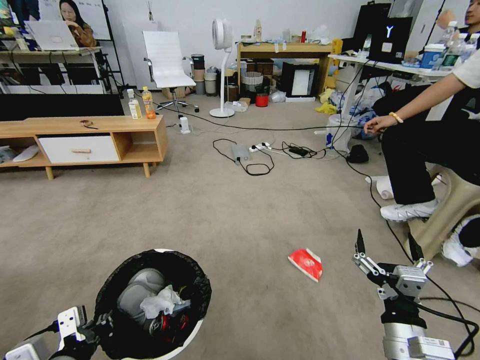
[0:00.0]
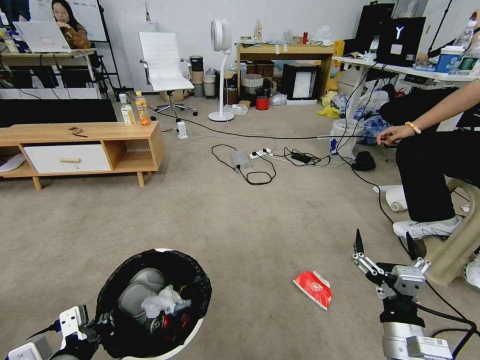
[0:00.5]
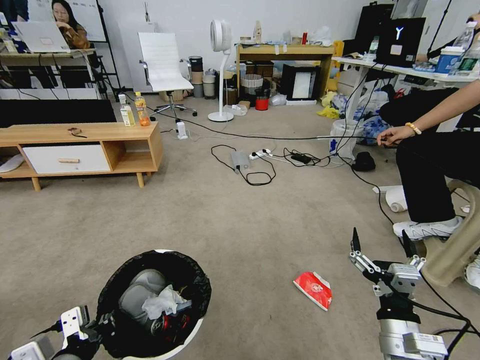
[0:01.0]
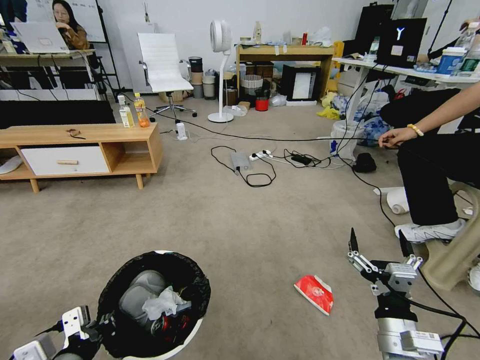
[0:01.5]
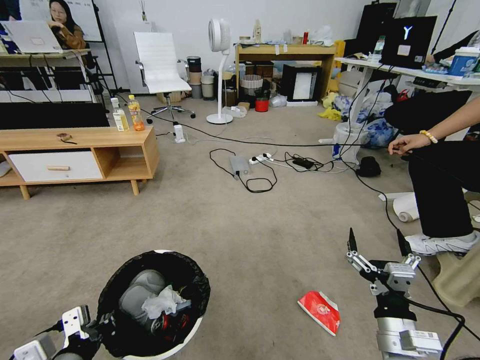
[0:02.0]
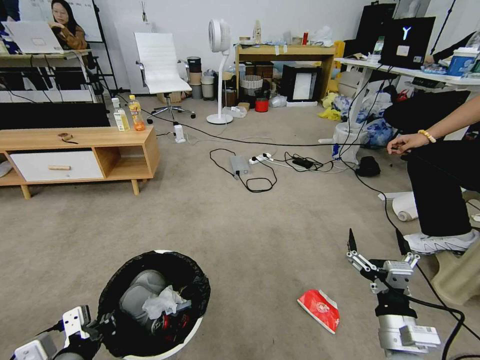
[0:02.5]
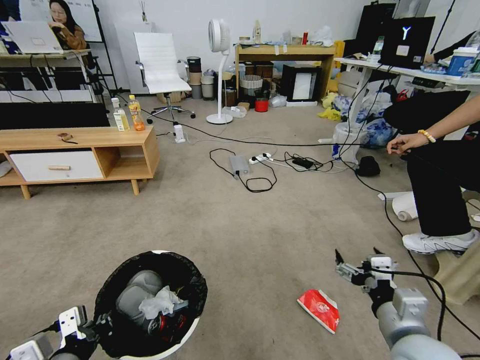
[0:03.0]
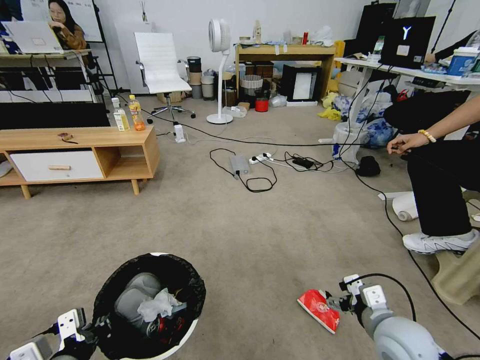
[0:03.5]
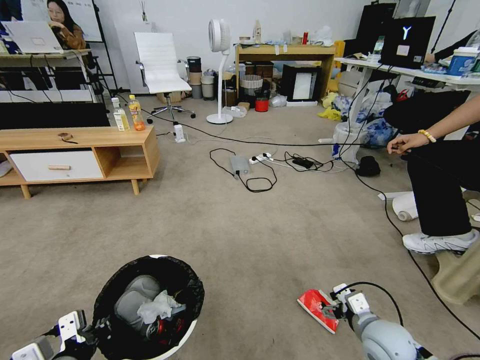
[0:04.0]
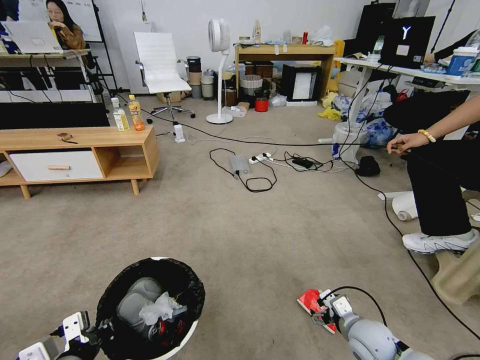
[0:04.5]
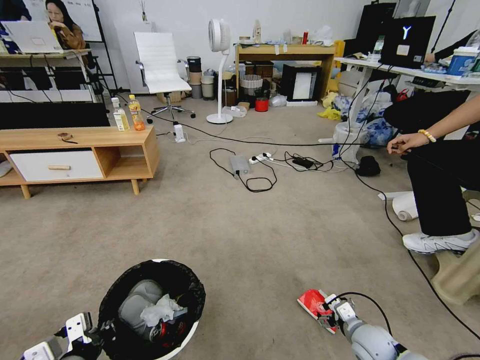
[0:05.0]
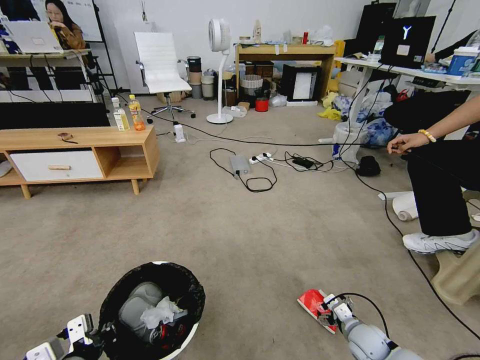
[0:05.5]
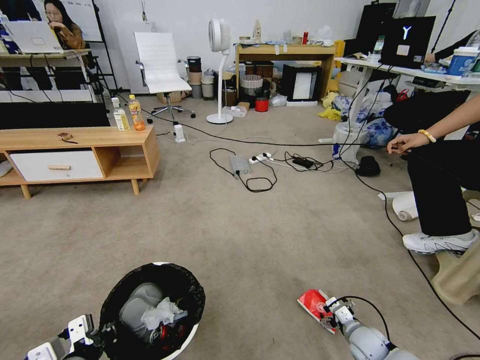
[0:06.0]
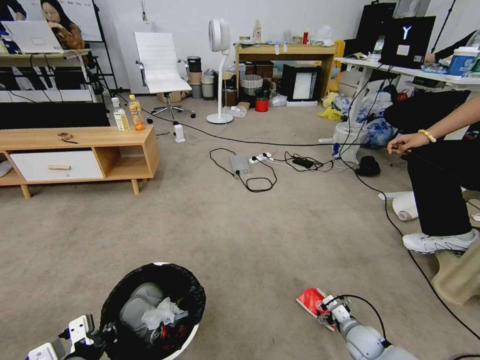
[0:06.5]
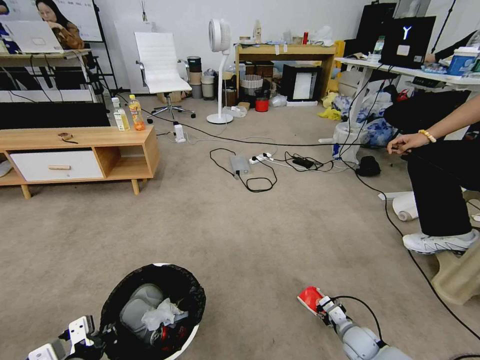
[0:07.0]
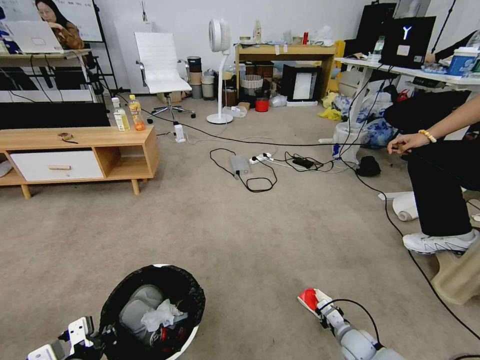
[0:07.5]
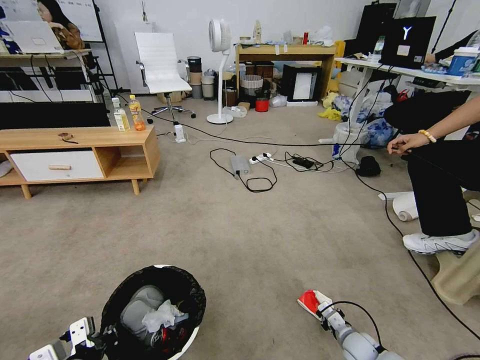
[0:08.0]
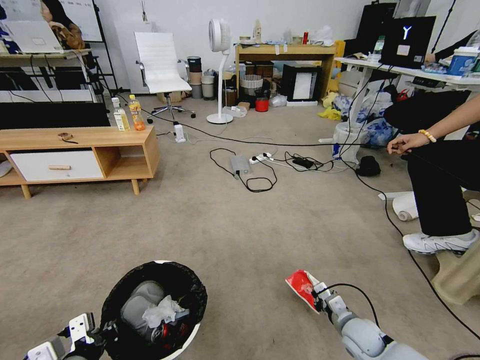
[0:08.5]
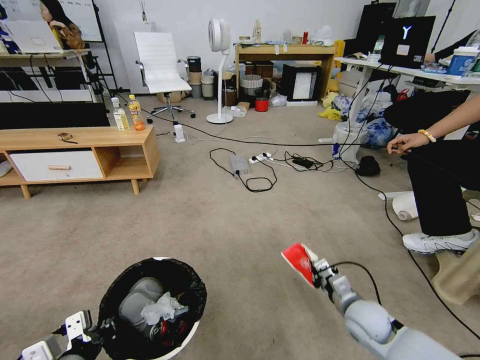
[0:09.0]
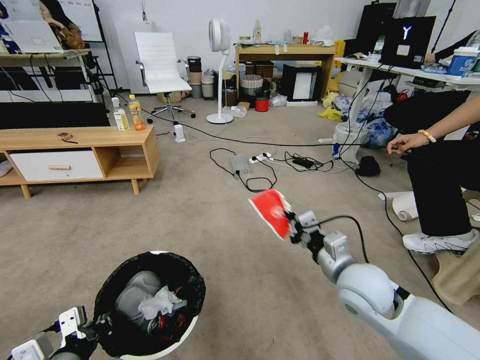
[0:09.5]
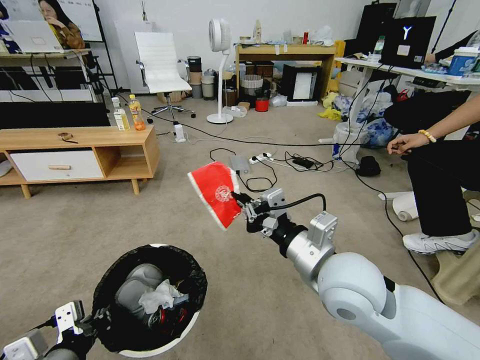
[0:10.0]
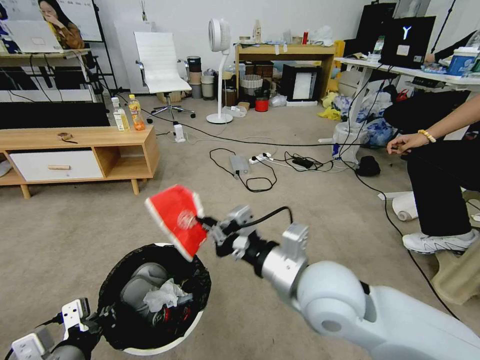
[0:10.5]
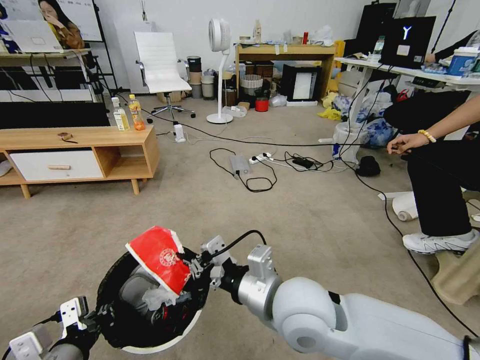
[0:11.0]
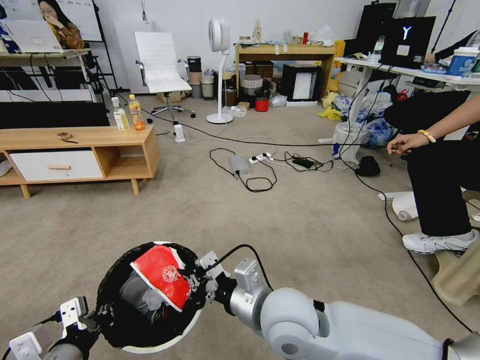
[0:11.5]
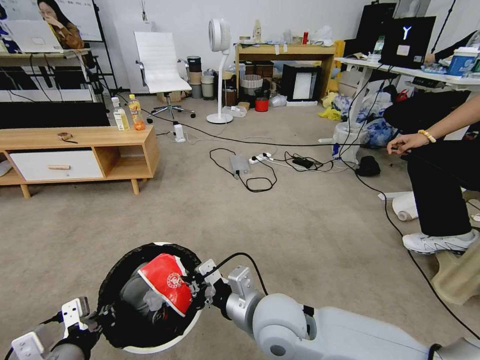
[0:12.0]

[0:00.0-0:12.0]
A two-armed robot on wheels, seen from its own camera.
Task of the whole recording: Pick up the trash bin and place the garbage on the floor into it.
0:02.0 to 0:04.0: The right gripper goes some 10 cm forward and downward.
0:04.0 to 0:06.0: The right gripper goes roughly 15 cm downward.
0:06.0 to 0:08.0: The right gripper closes up.
0:08.0 to 0:10.0: The right gripper moves upward and to the left, approximately 50 cm; the left gripper moves upward, approximately 5 cm.
0:10.0 to 0:12.0: The right gripper shifts roughly 15 cm downward and to the left.

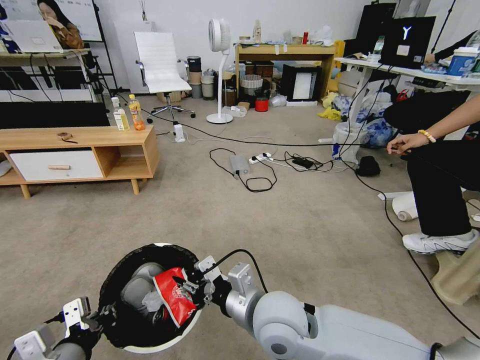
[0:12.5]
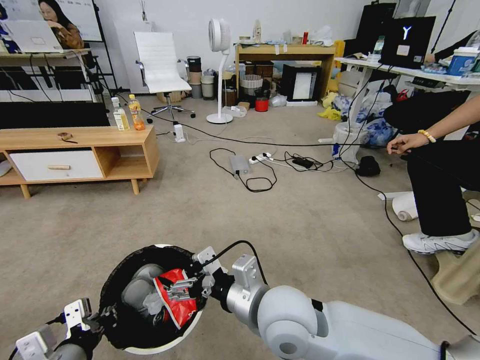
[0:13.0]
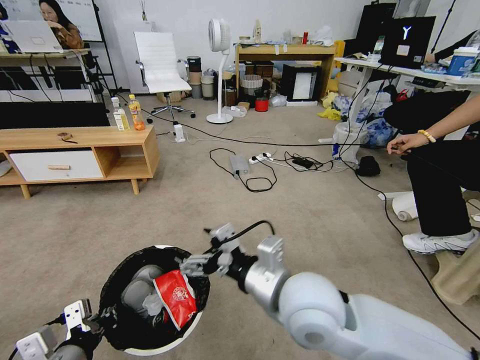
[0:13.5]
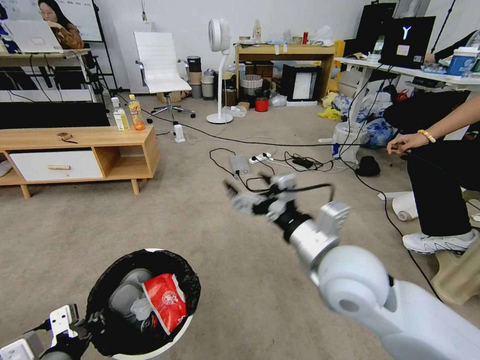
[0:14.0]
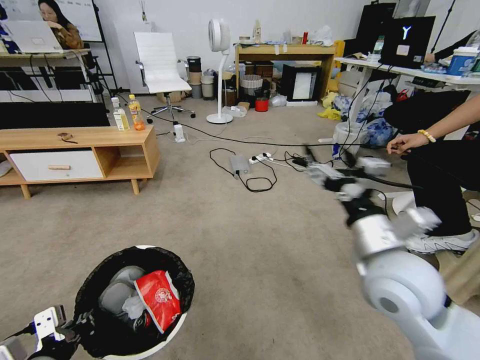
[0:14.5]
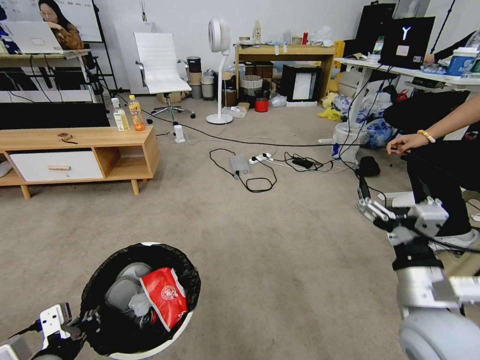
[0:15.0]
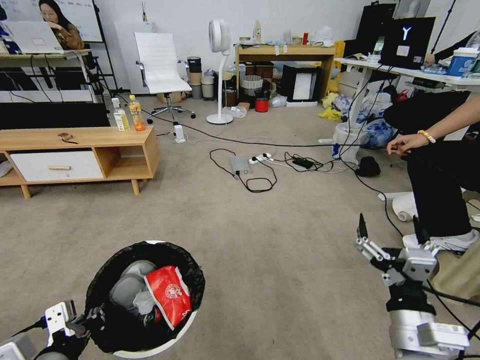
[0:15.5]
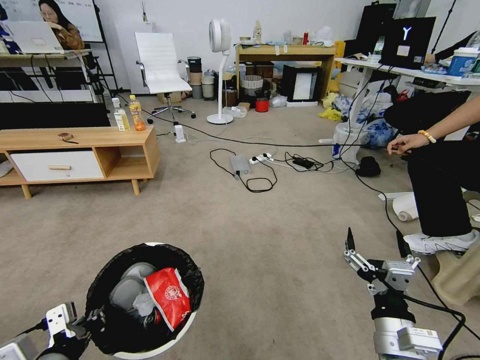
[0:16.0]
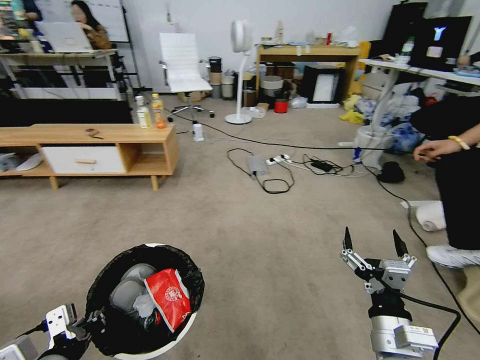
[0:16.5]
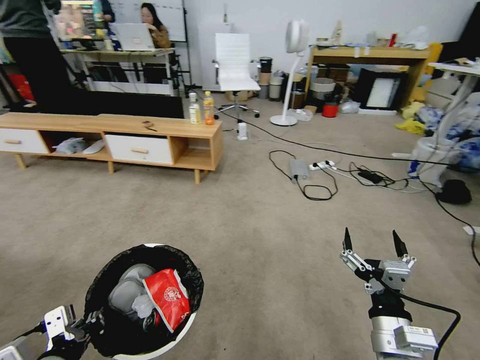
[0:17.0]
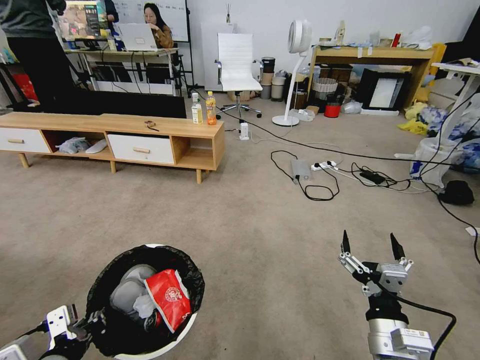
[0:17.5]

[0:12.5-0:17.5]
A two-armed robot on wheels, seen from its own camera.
Task of the whole recording: Pick up the trash bin and place the garbage on the floor into it.
0:12.5 to 0:15.0: The right gripper travels to the right by approximately 20 cm, and opens.
0:15.0 to 0:17.5: The right gripper travels downward by about 10 cm.

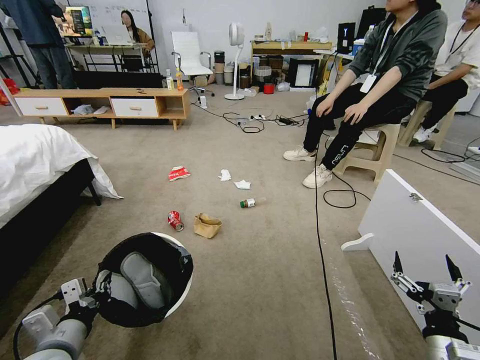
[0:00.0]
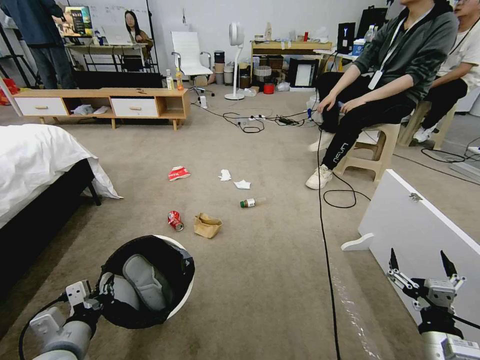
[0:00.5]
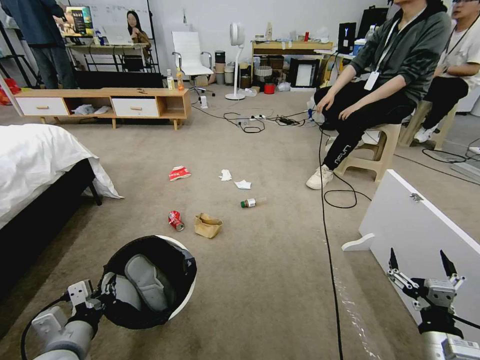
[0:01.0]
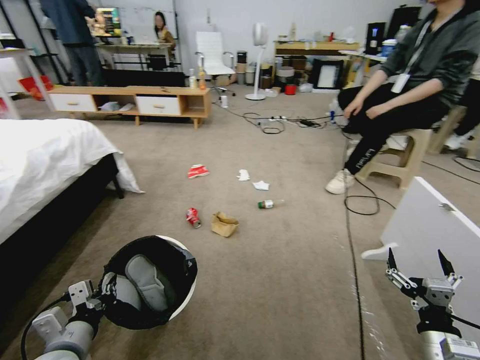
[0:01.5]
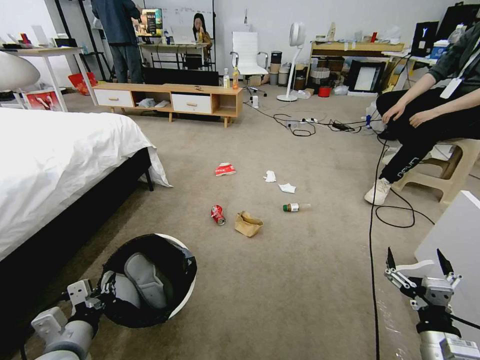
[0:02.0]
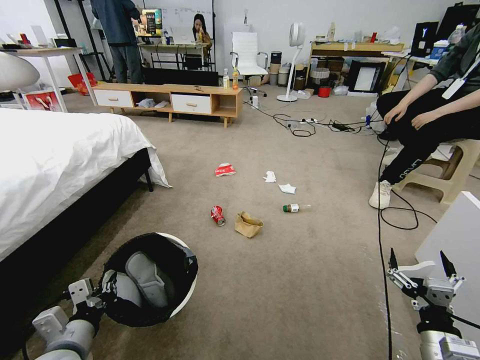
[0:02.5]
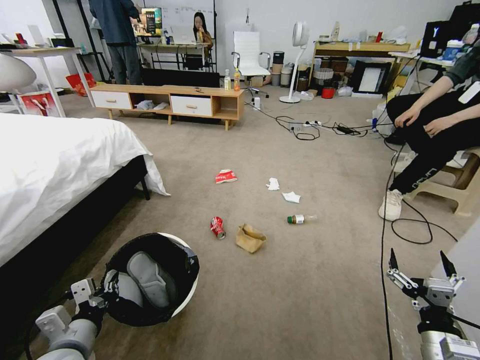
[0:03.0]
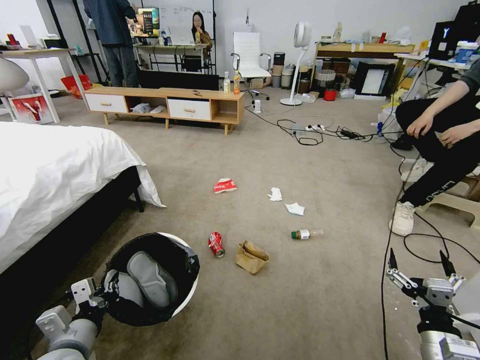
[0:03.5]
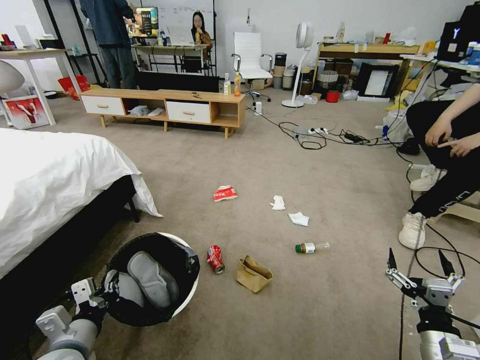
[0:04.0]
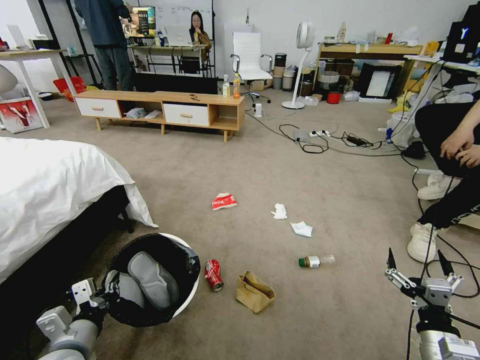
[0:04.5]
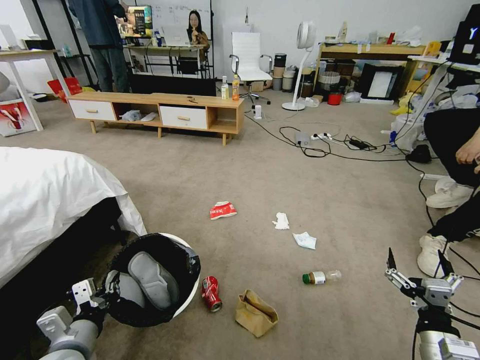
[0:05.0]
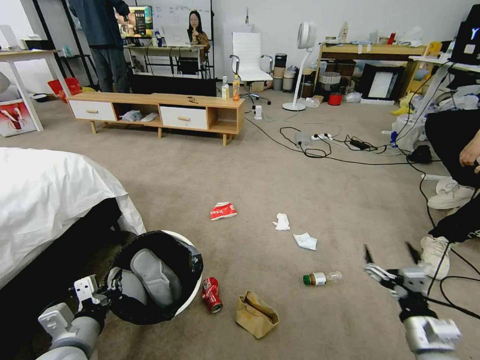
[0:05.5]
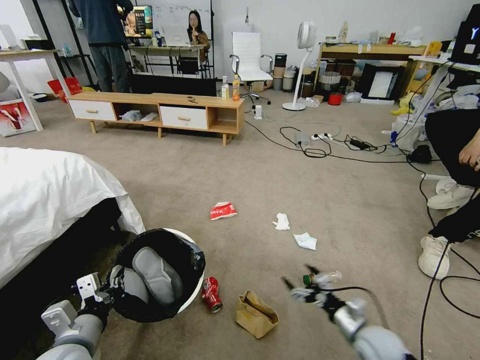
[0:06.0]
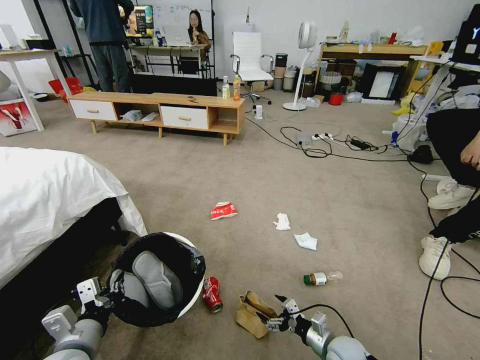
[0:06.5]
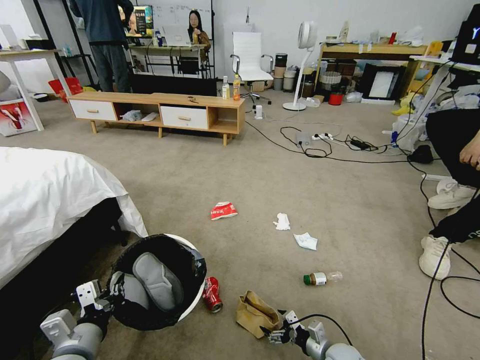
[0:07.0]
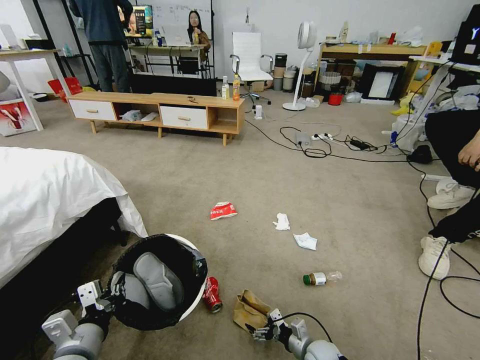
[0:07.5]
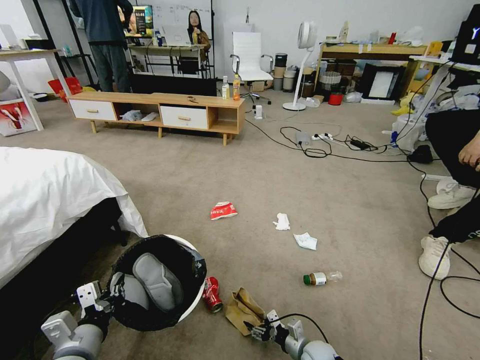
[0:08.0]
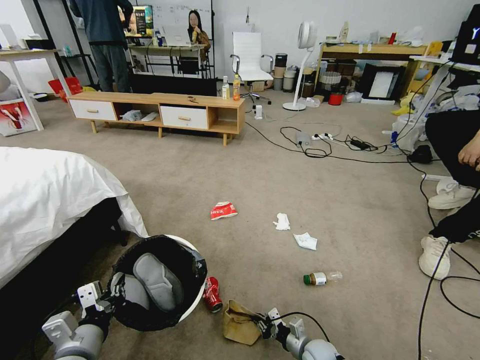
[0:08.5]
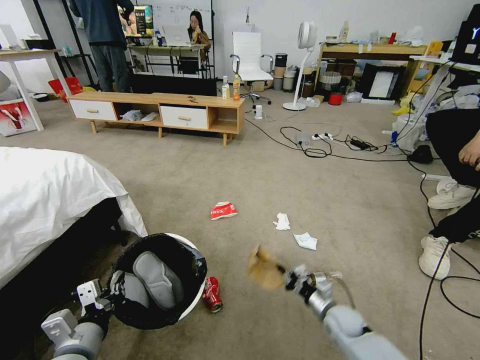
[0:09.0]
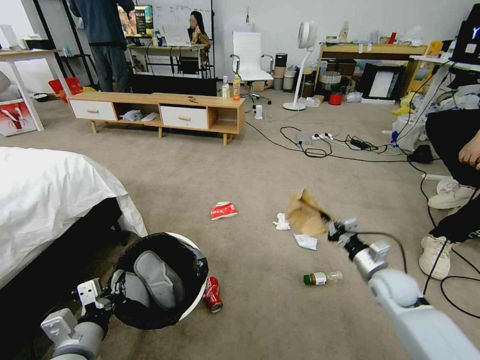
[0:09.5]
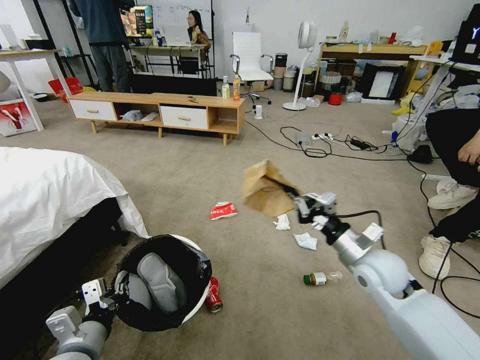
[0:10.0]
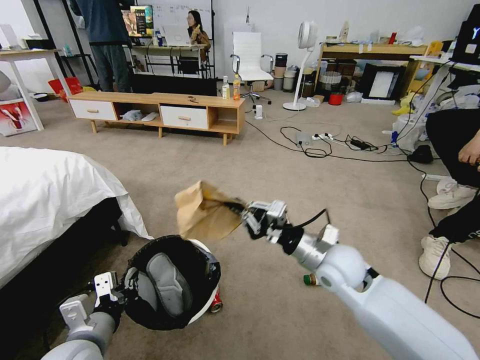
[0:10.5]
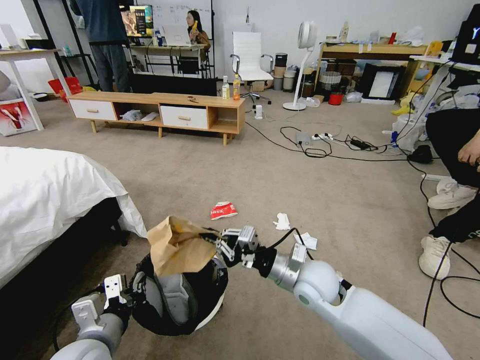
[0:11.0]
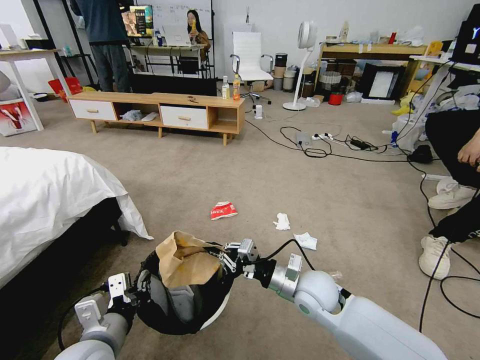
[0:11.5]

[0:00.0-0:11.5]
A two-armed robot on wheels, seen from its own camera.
Task of the whole recording: Pick up the trash bin and place the garbage on the floor into it.
0:04.0 to 0:06.0: The right gripper travels forward by approximately 10 cm.
0:06.0 to 0:07.5: The right gripper is displaced downward and to the left by about 25 cm.
0:07.5 to 0:09.5: The right gripper heads upward and to the right, covering about 30 cm, and closes its fingers.
0:09.5 to 0:11.5: The left gripper changes place by roughly 5 cm; the right gripper heads to the left, covering about 20 cm.
